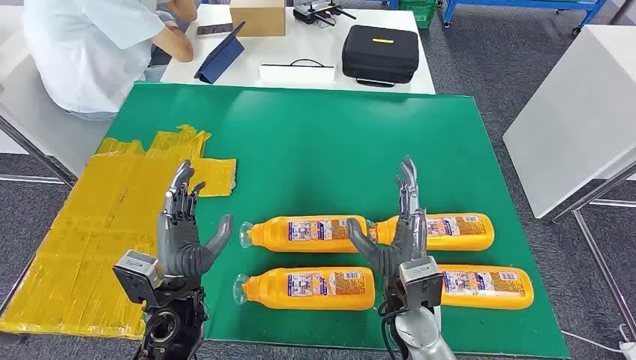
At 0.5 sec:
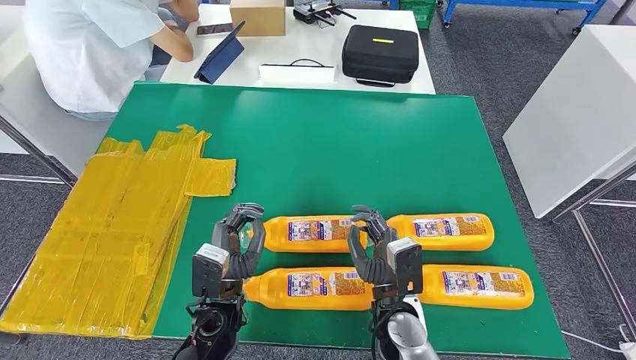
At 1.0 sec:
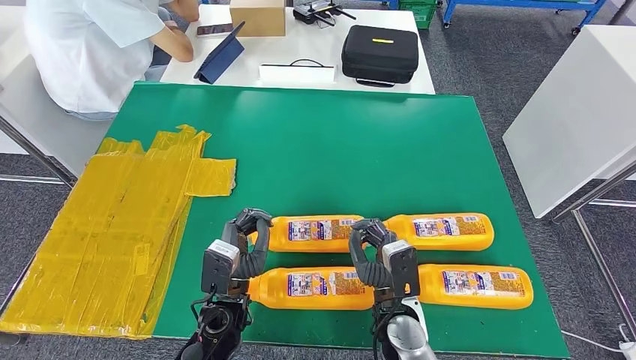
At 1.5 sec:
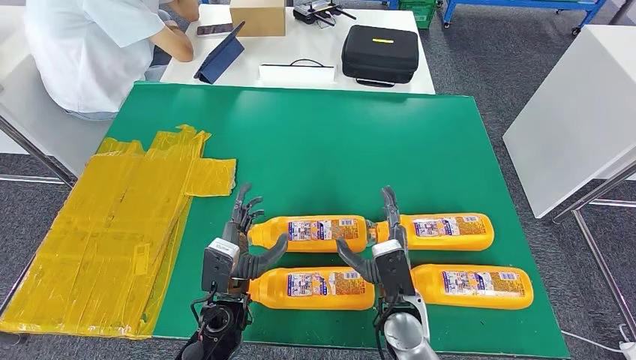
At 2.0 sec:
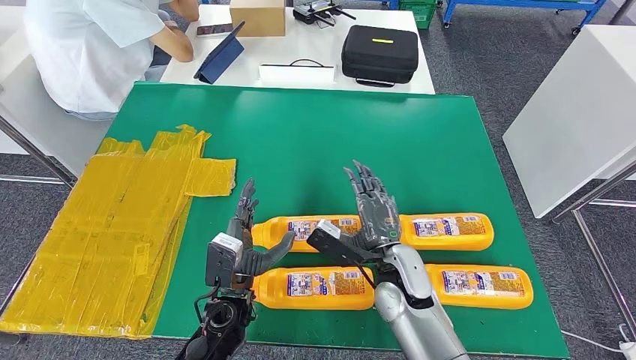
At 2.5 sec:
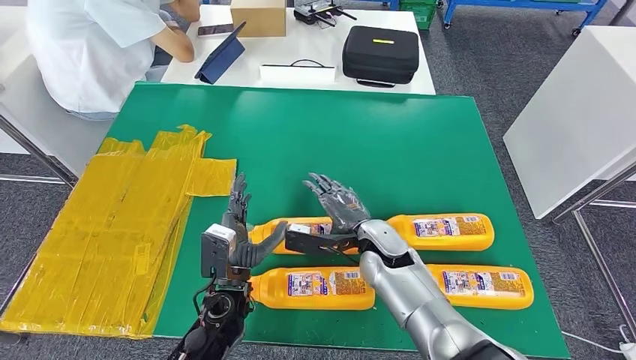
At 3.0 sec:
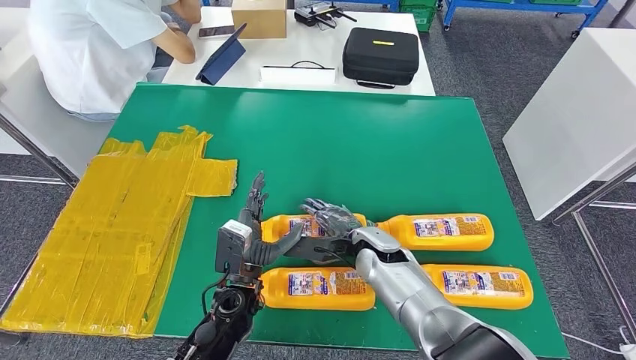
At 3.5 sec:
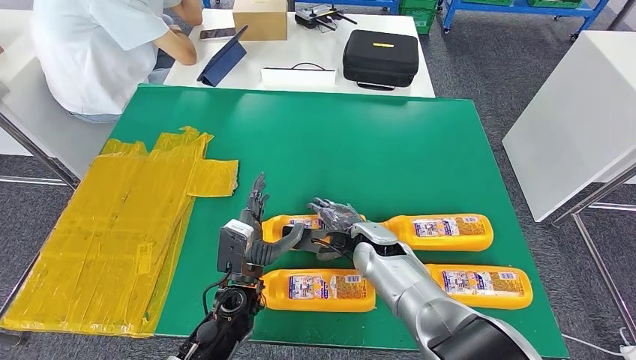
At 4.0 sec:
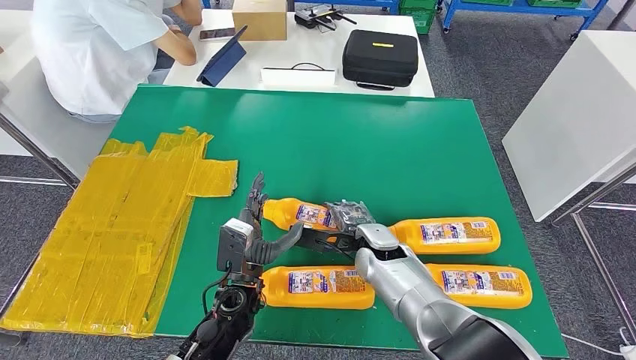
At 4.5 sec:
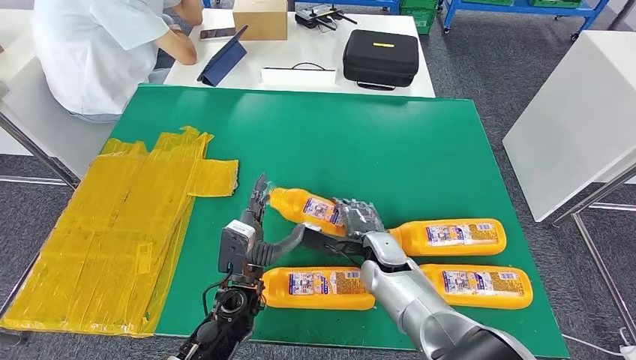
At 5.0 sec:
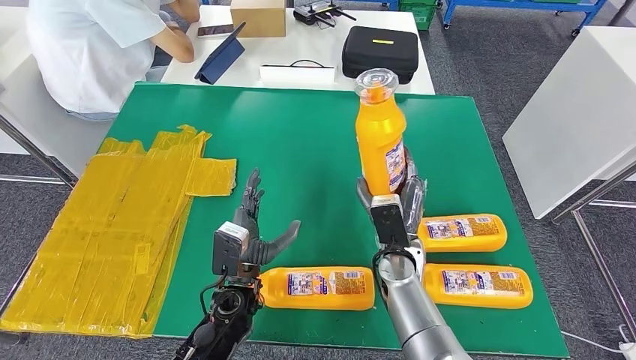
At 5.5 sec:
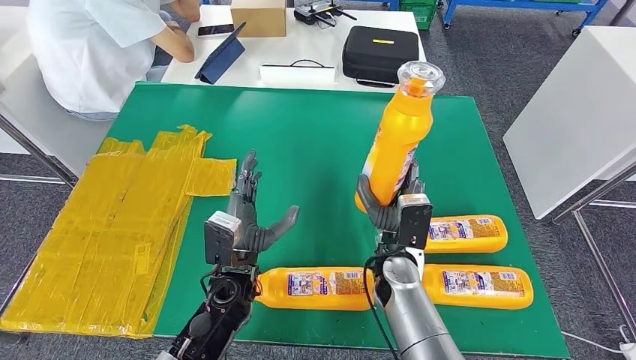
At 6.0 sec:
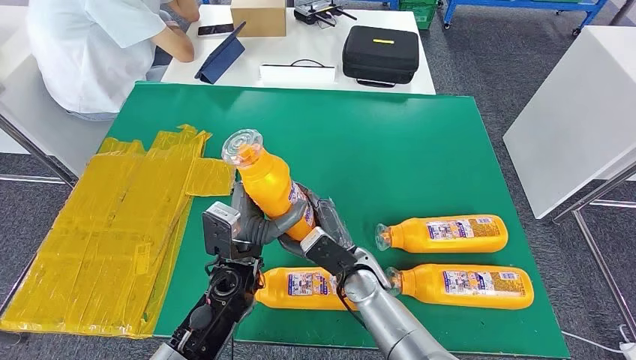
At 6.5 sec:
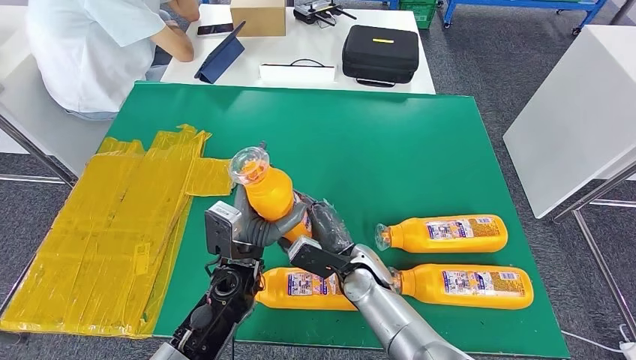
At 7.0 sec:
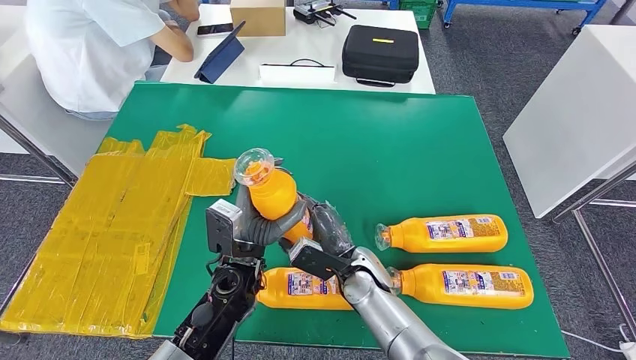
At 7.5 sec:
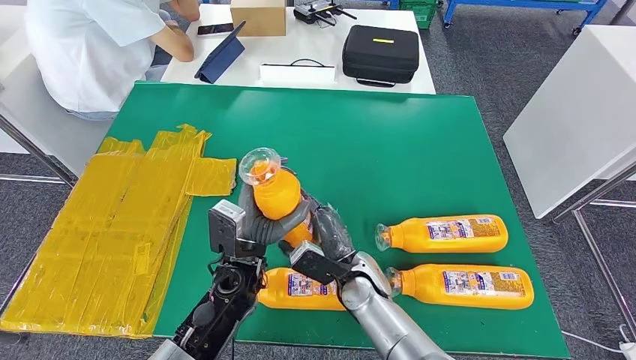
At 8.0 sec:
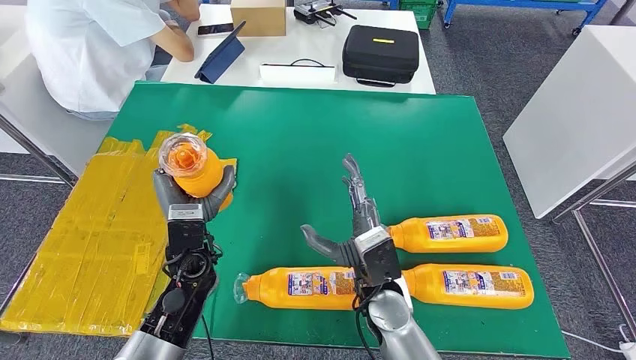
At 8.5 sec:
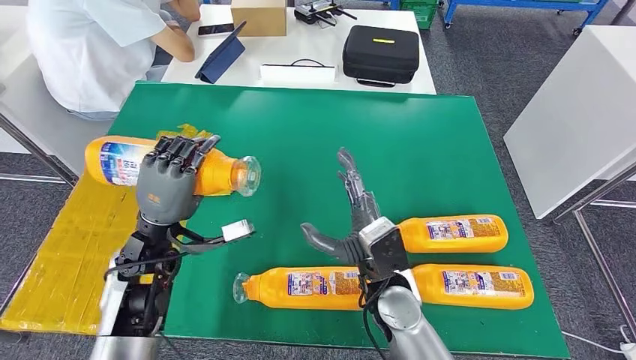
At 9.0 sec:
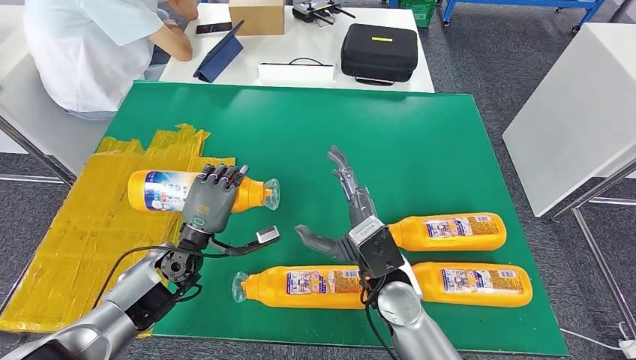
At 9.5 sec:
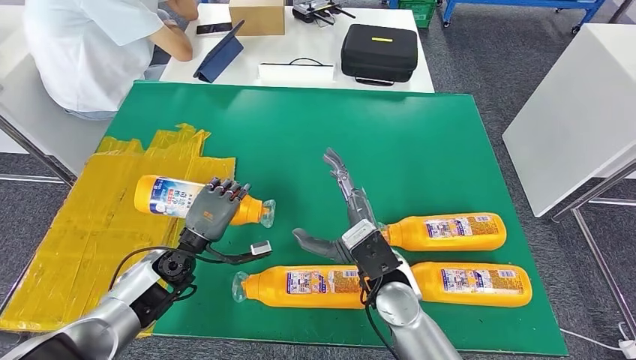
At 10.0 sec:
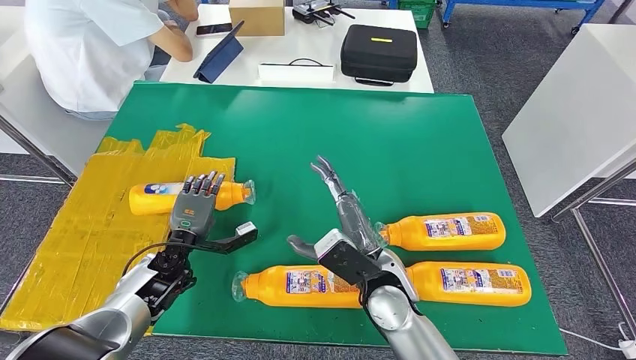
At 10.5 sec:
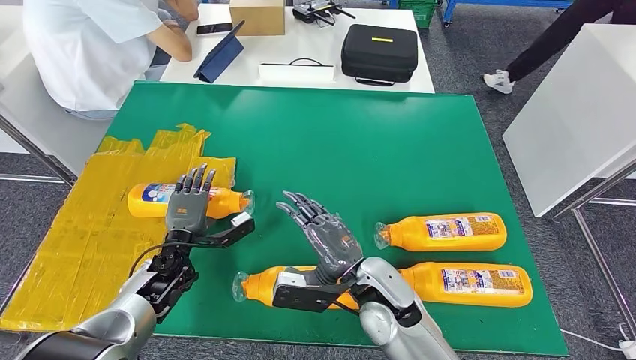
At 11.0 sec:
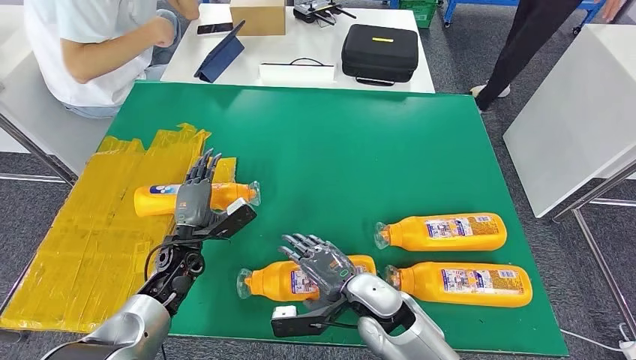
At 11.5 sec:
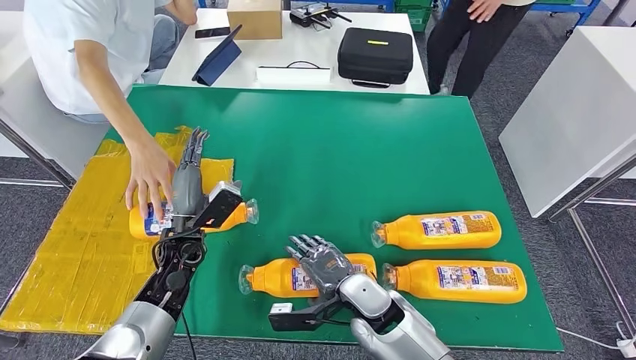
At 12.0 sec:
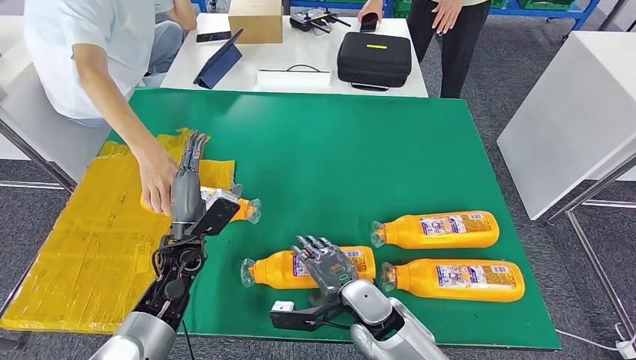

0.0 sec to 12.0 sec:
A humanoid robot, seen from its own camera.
Step, 0.0 sec to 5.0 sec: Take the fast-moving consumer goods bottle from the table.
Step, 6.5 sec to 9.5 sec: Flip the fast-moving consumer goods bottle to the front side.
2.0 sec to 4.0 sec: The right hand heads forward, covering approximately 5 cm.
6.0 sec to 8.0 sec: The right hand moves roughly 5 cm; the left hand travels to the left by approximately 10 cm.
8.0 sec to 10.0 sec: The left hand travels downward and to the left by roughly 15 cm.

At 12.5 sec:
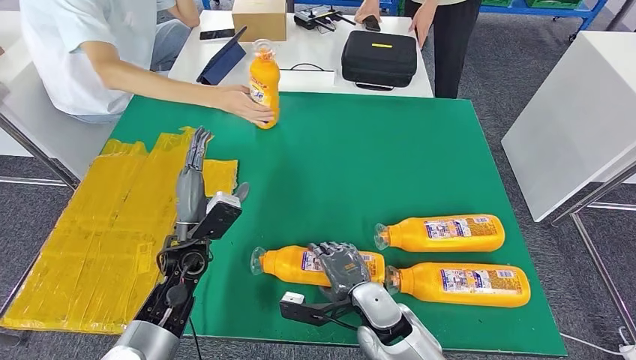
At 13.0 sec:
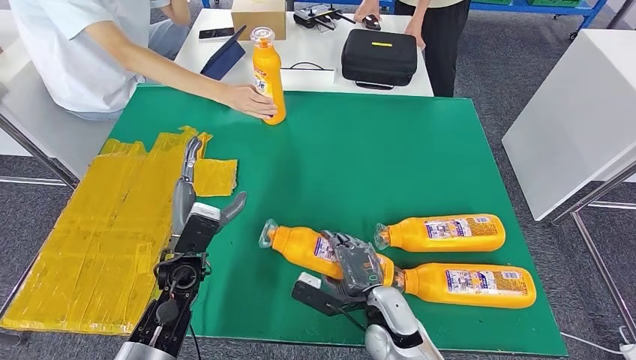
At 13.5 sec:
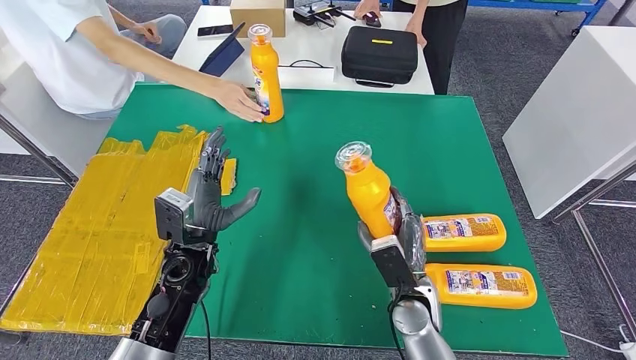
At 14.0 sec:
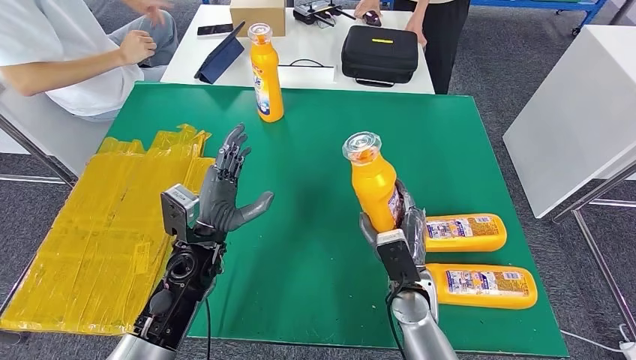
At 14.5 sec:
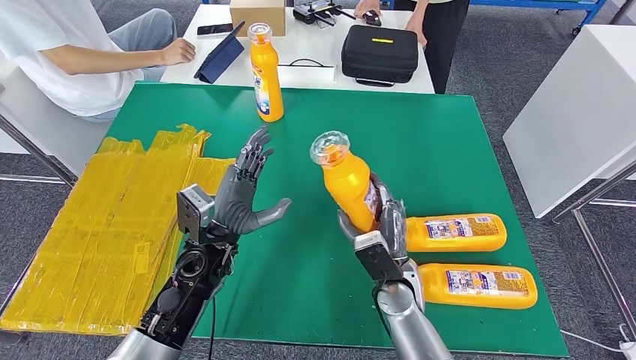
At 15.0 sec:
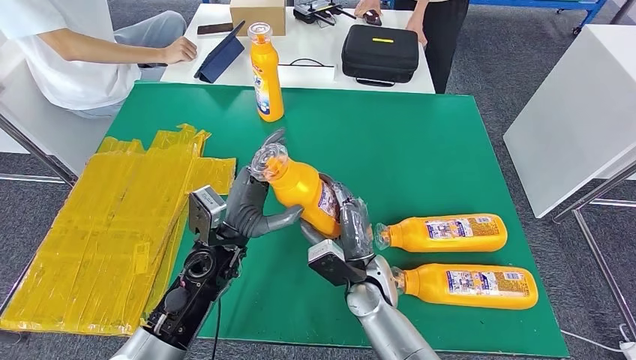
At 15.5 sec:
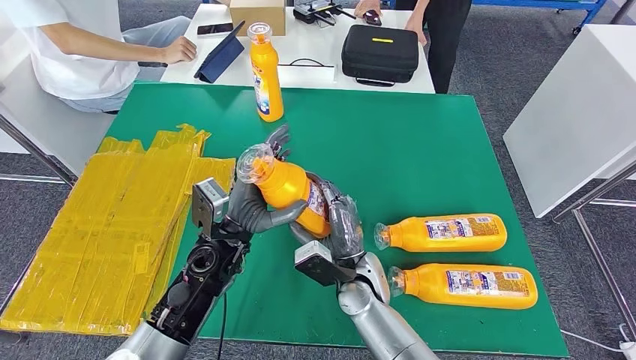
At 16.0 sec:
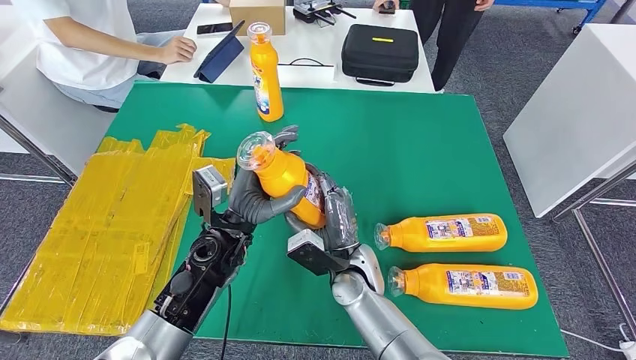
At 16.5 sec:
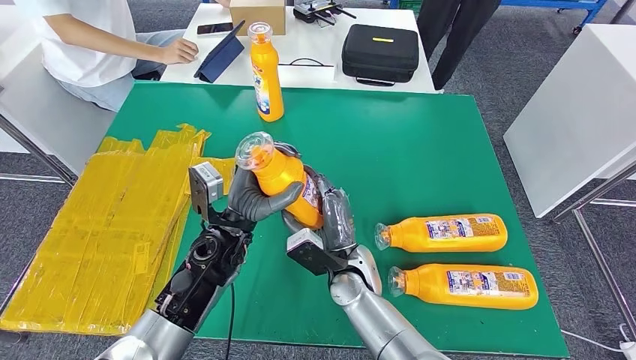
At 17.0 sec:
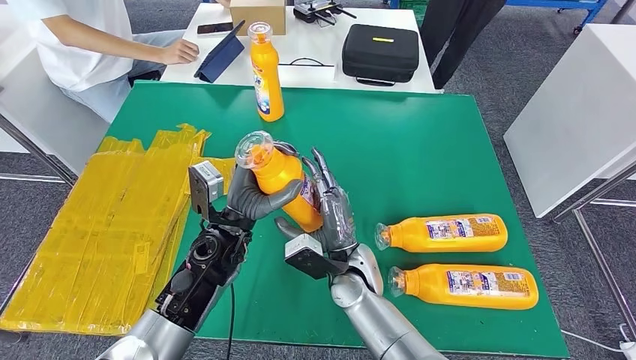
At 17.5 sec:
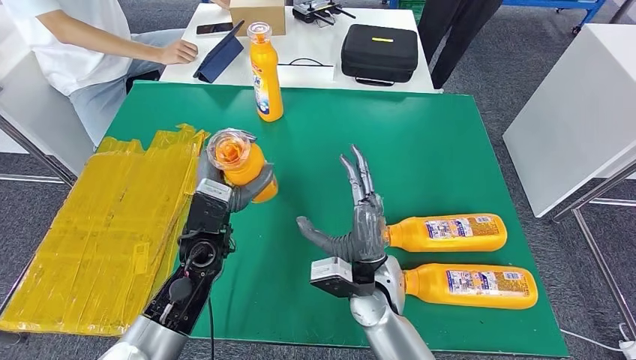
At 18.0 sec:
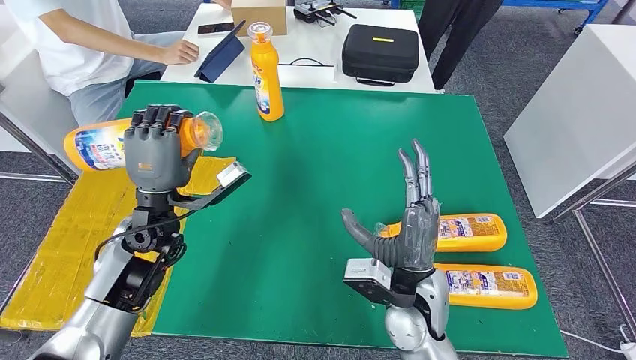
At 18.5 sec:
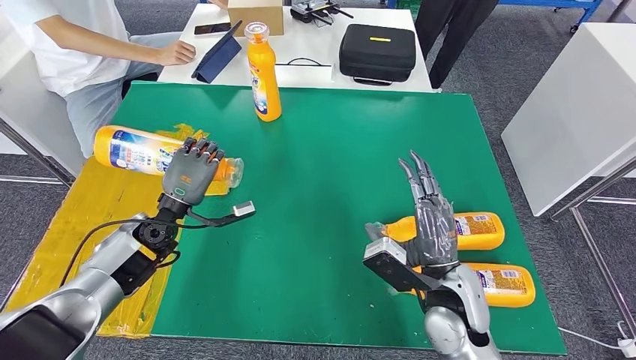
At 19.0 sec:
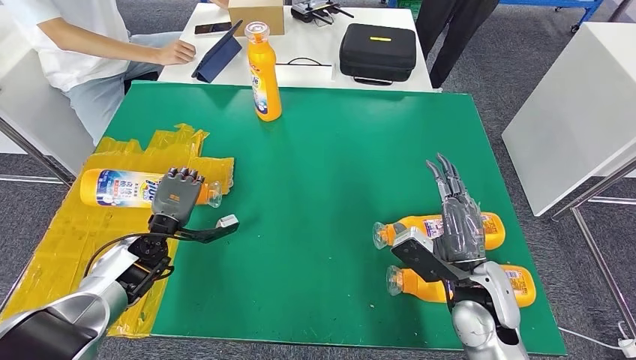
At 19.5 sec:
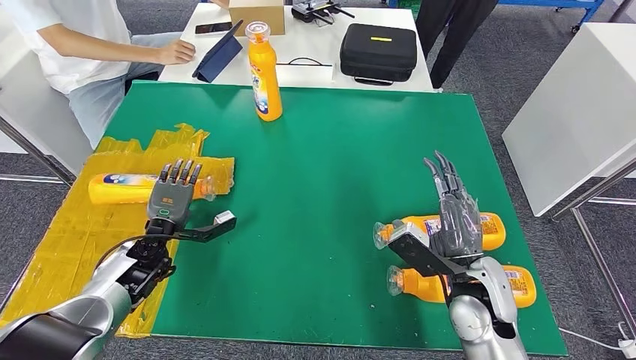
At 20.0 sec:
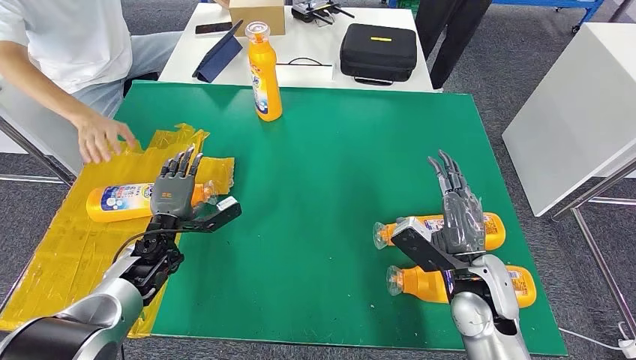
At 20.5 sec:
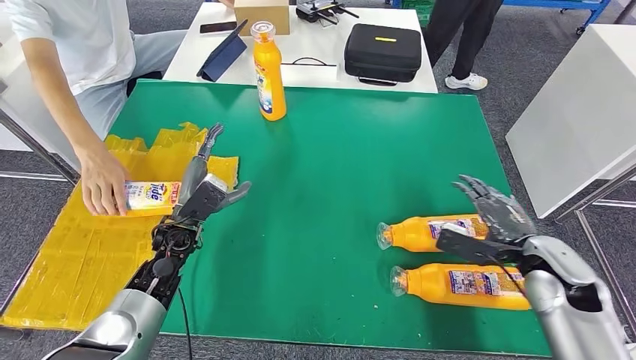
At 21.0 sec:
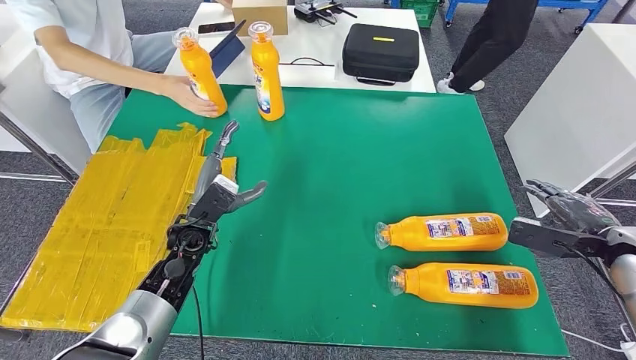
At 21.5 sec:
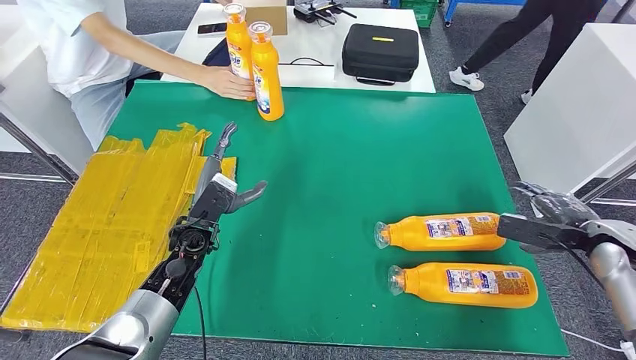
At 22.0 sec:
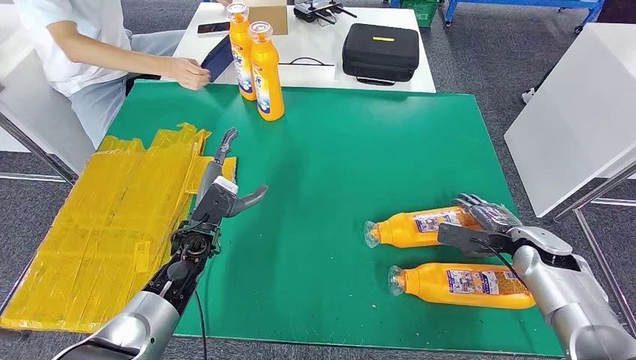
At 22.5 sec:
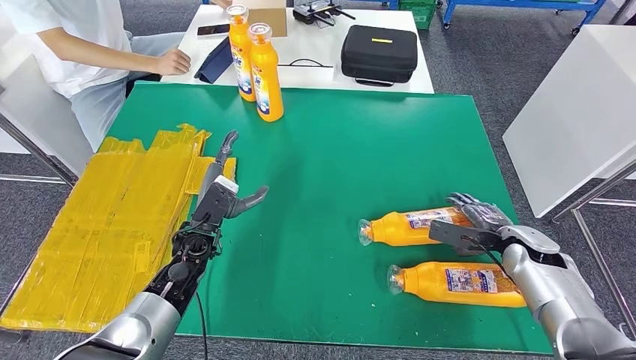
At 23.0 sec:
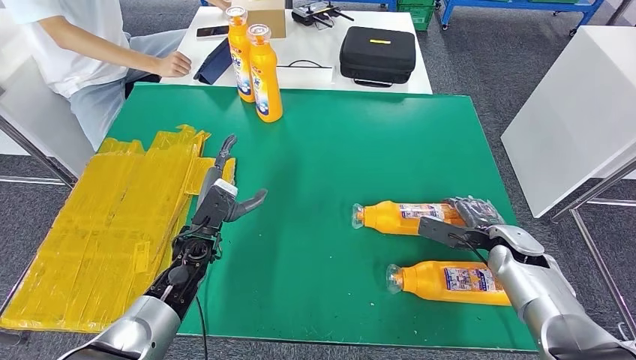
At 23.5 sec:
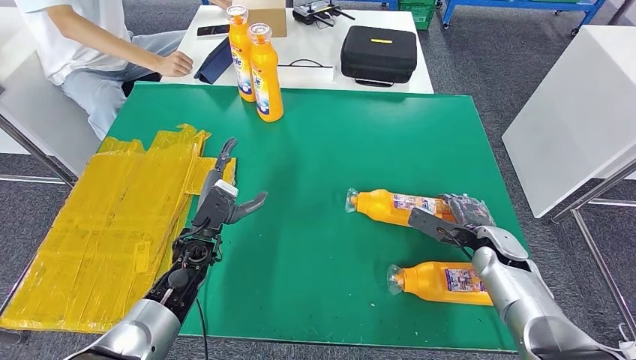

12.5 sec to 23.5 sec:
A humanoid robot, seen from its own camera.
Step, 12.5 sec to 15.5 sec: Pick up the fast-moving consumer goods bottle from the table.
Step, 16.0 sec to 19.5 sec: Flip the fast-moving consumer goods bottle to the front side.
14.5 sec to 16.0 sec: The right hand moves to the left, about 10 cm.
